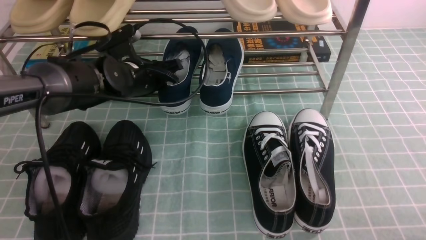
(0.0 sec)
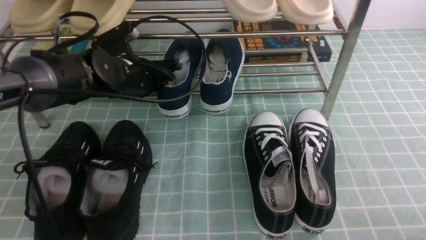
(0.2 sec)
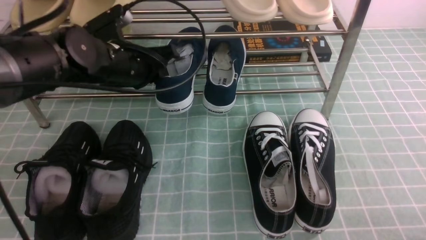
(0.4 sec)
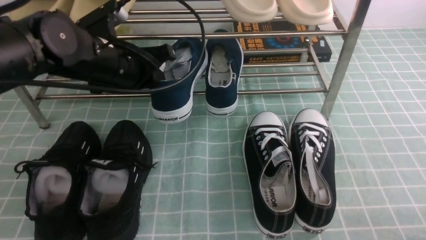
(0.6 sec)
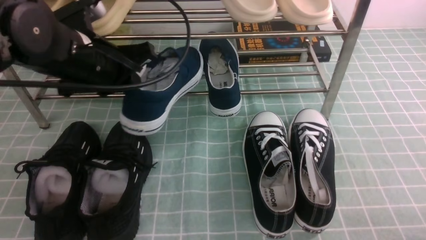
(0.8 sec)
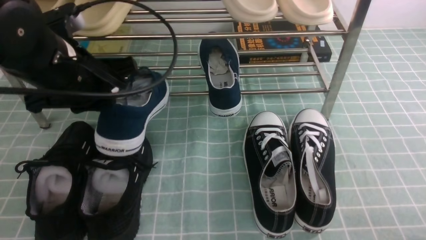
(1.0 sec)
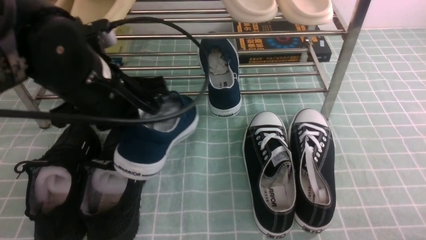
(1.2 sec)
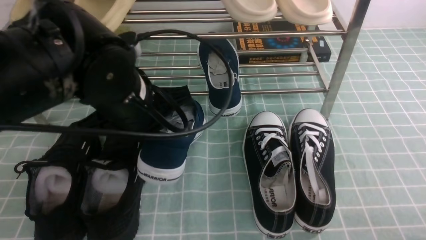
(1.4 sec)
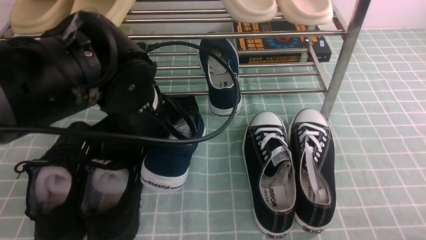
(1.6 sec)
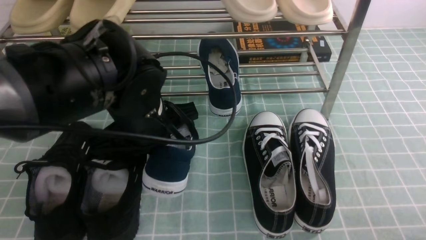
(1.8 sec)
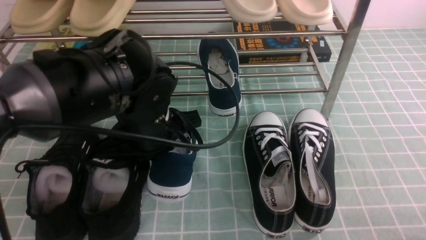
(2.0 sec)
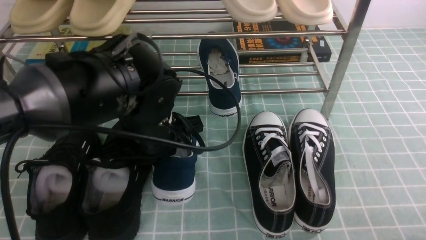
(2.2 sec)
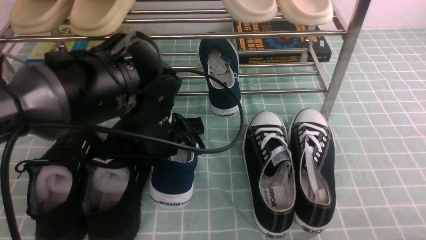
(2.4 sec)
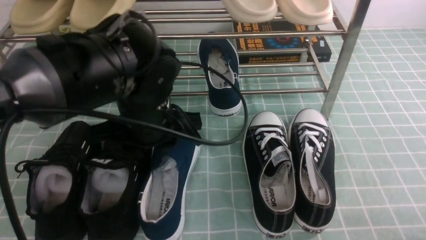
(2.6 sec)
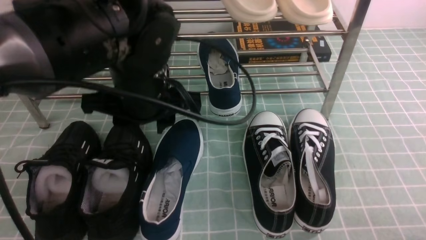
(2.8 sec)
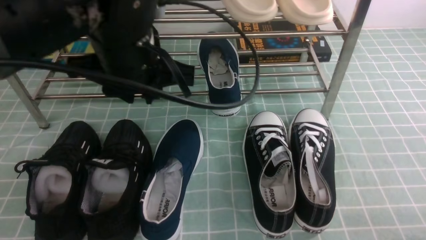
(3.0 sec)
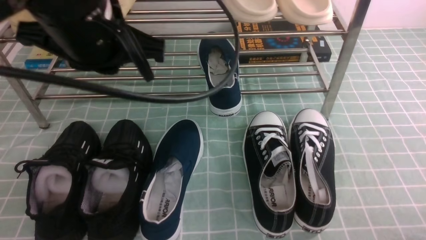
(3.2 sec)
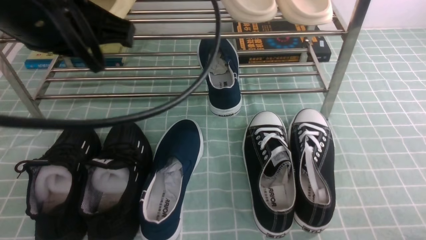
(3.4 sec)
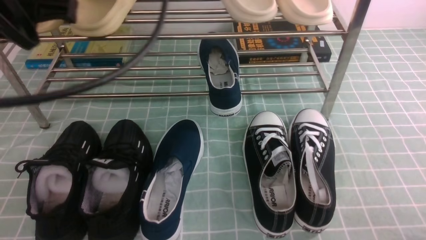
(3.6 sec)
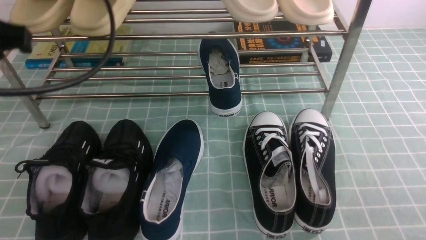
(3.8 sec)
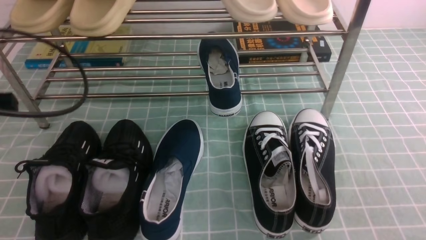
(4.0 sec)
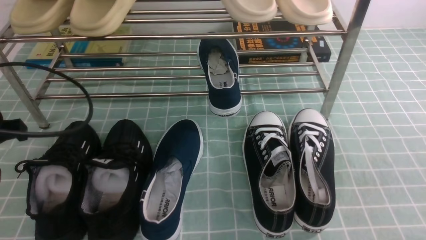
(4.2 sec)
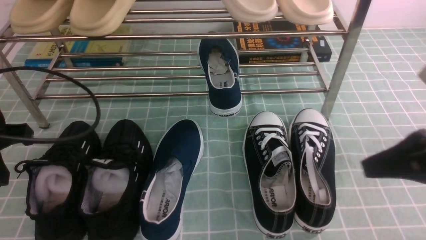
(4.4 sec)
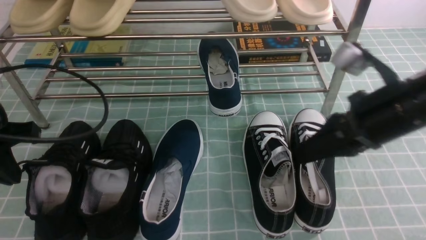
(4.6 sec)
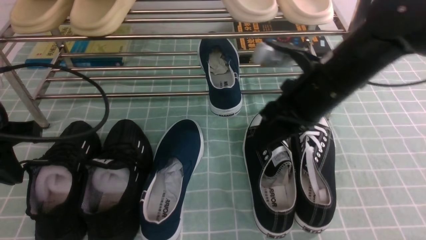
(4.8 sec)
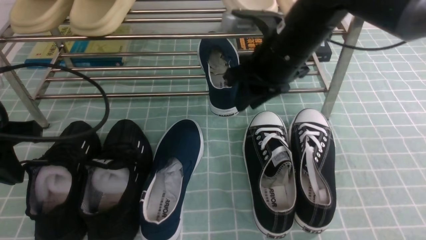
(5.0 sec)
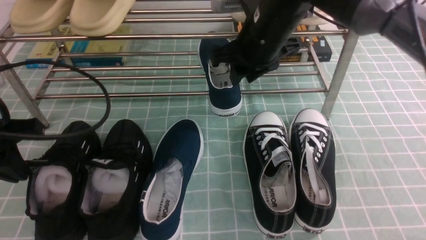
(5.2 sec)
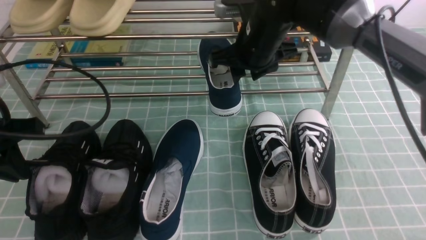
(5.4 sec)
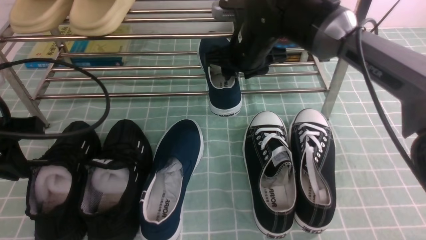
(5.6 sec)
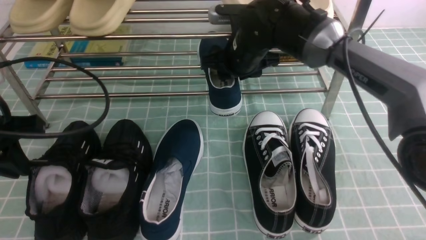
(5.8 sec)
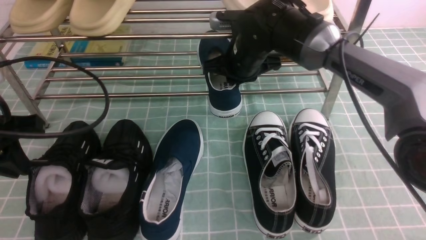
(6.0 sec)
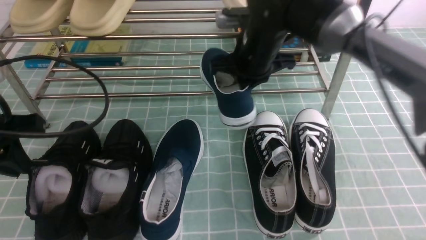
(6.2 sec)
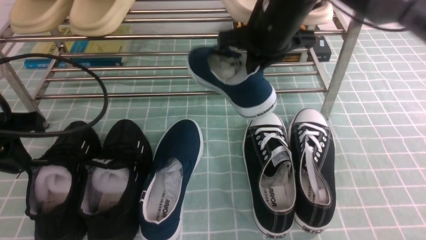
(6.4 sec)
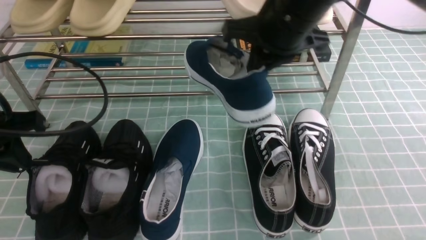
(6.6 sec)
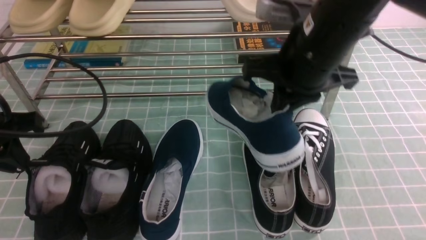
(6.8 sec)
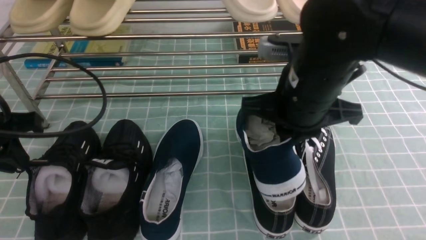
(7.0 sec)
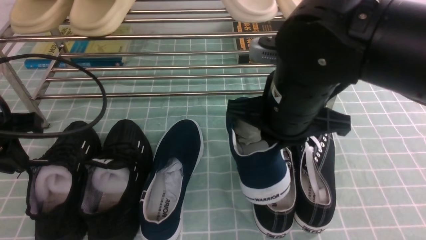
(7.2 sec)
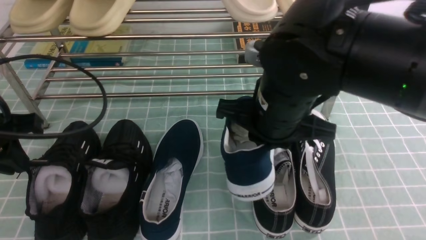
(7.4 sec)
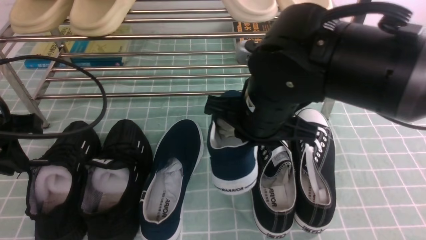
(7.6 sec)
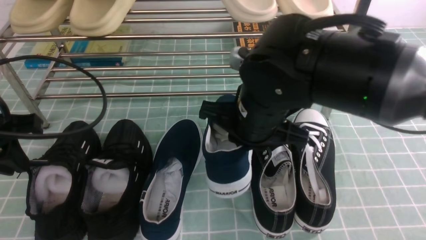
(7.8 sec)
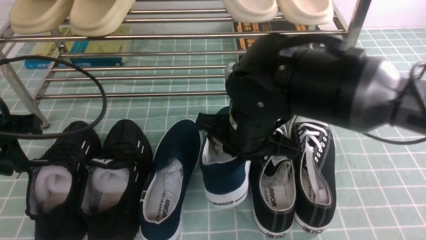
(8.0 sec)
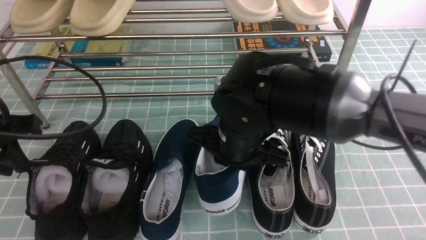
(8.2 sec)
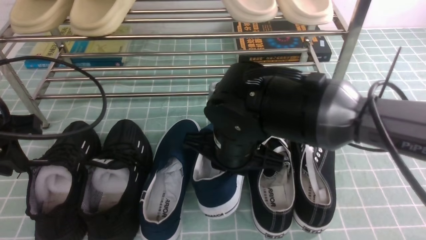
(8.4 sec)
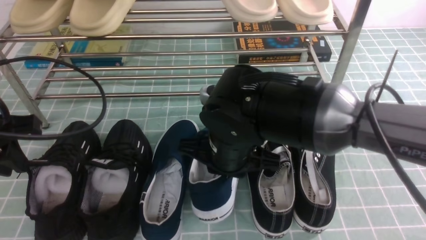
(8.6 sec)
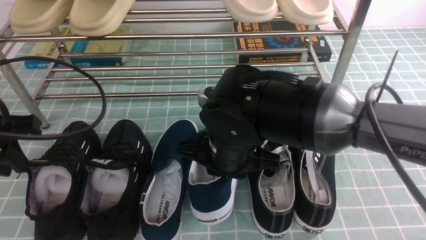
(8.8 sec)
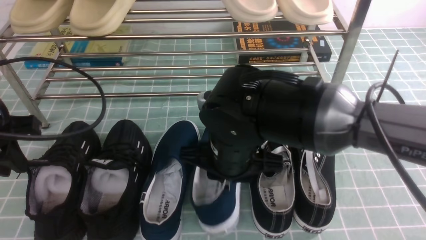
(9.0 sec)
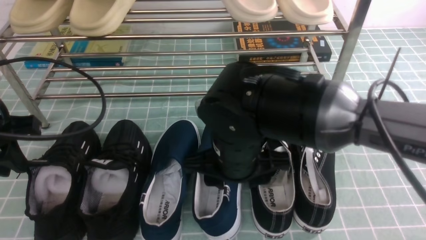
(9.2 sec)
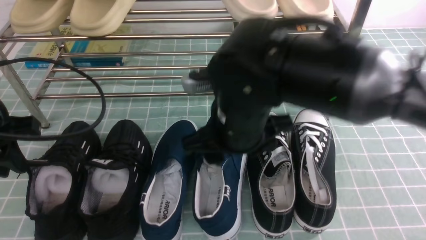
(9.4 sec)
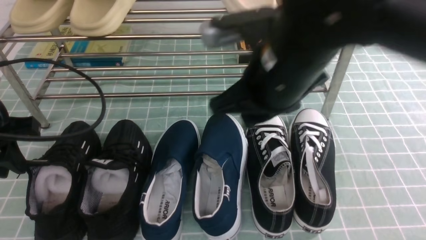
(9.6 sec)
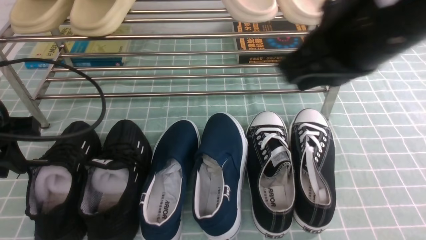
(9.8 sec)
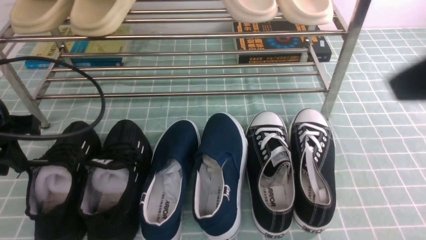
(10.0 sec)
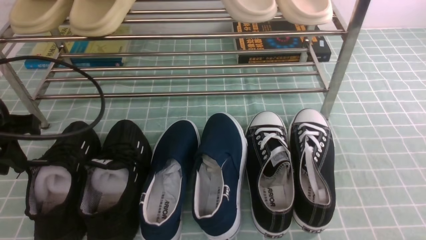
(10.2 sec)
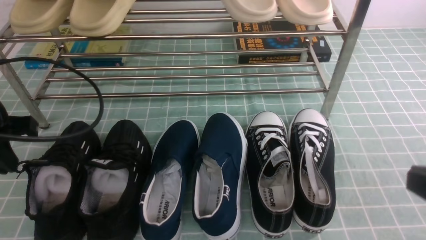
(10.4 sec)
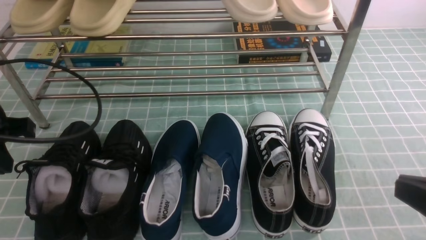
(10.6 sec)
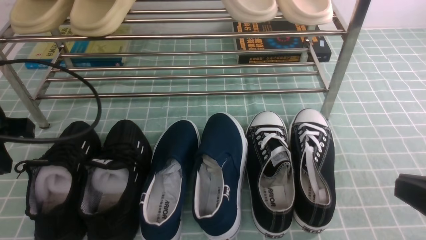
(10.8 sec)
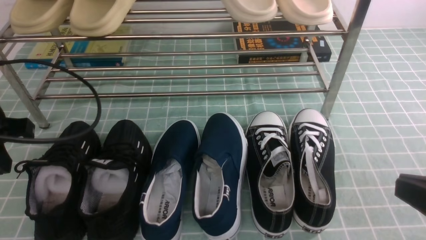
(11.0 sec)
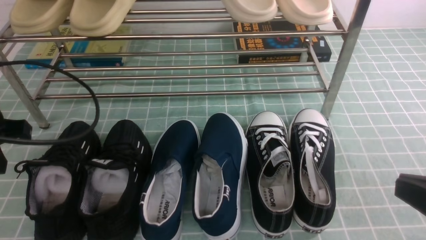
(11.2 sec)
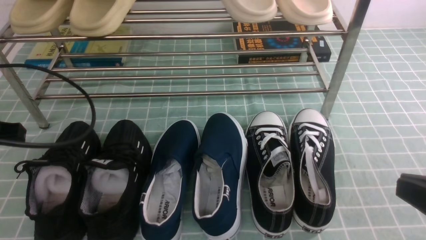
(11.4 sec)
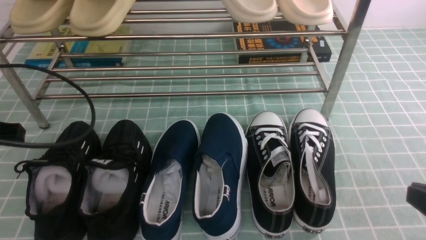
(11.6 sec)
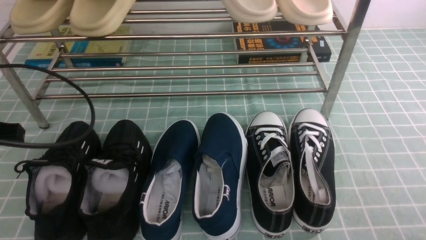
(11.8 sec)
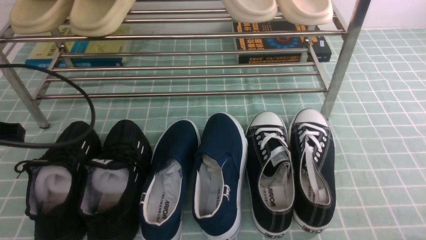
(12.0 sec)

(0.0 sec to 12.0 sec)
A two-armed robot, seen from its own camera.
Step, 0.4 sec - 2.6 sec: Use your left arm to remove the clamped shoe from the shoe rack and put it down.
Step, 2.8 sec - 6.0 sec: use the right arm to clamp a shoe in the middle of the shoe rack.
Step, 6.2 sec - 9.2 sec: use the right arm to take out the clamped shoe from the shoe rack and put it down.
0.0 sec - 1.6 sec: The left gripper travels backward and upward by roughly 15 cm.
1.6 sec - 3.0 sec: The left gripper shifts roughly 10 cm upward.
3.0 sec - 4.4 sec: The left gripper travels to the left by approximately 20 cm, and closes up. Meanwhile the right gripper is displaced upward, forward and to the left by some 20 cm, and closes.
4.4 sec - 6.0 sec: The right gripper moves forward and to the left, some 30 cm, and opens, then closes again.
6.0 sec - 7.6 sec: The right gripper is displaced backward by roughly 15 cm.
7.6 sec - 9.0 sec: The right gripper moves downward, about 5 cm, and opens.
9.0 sec - 10.4 sec: The right gripper shifts roughly 30 cm to the right and backward, and closes.
10.4 sec - 12.0 sec: The right gripper travels downward and to the right by approximately 15 cm.

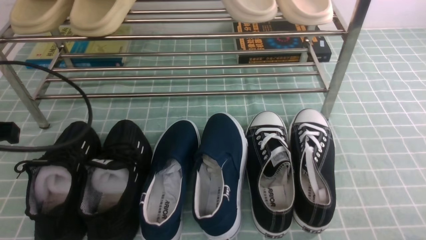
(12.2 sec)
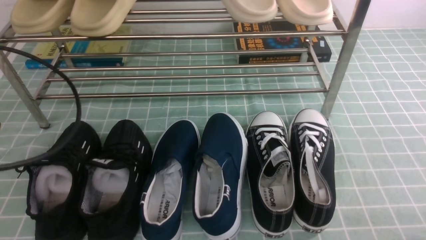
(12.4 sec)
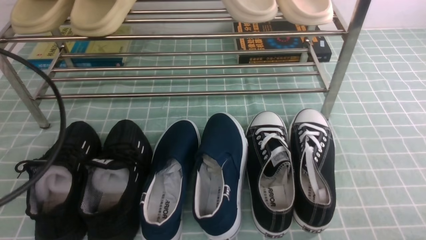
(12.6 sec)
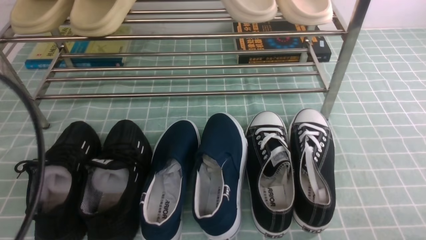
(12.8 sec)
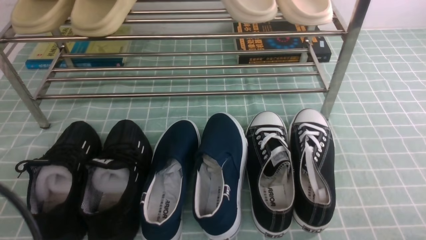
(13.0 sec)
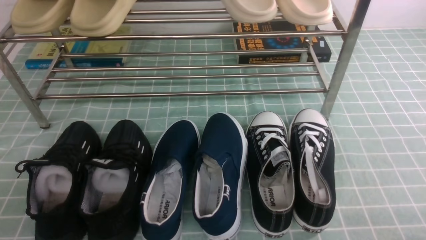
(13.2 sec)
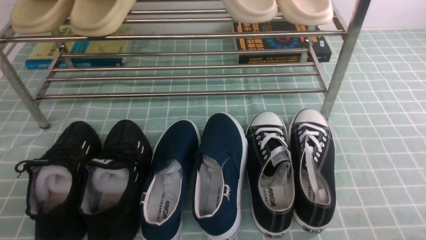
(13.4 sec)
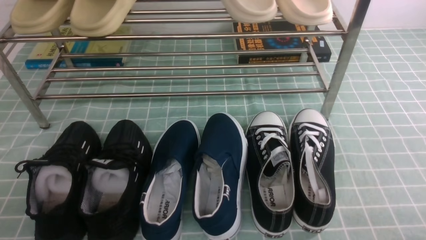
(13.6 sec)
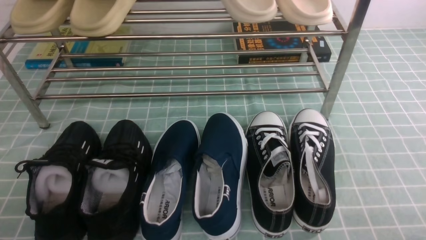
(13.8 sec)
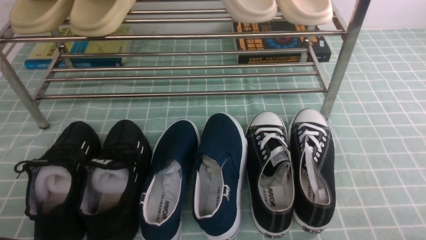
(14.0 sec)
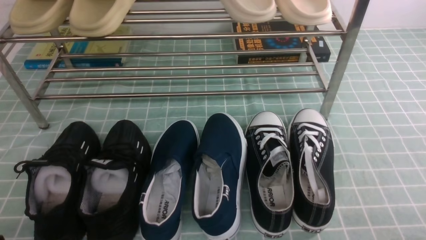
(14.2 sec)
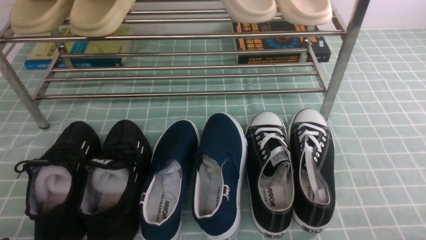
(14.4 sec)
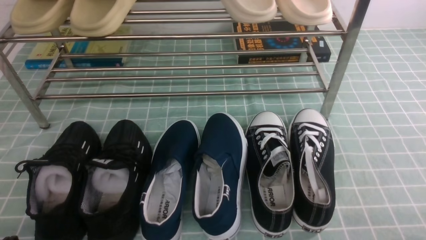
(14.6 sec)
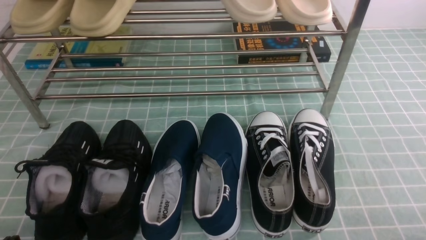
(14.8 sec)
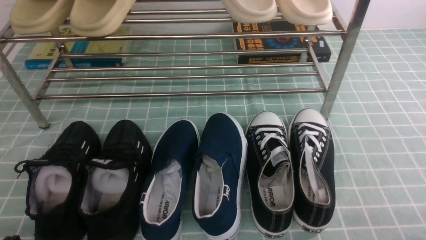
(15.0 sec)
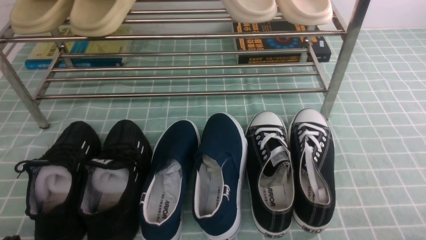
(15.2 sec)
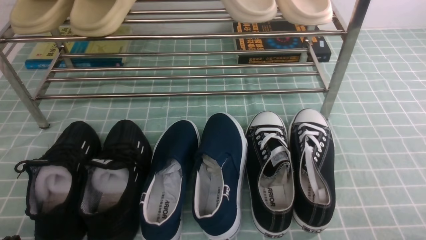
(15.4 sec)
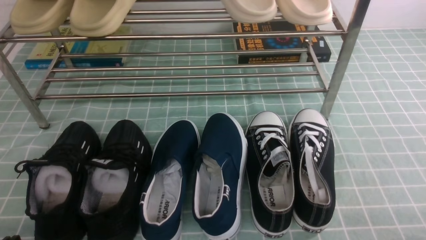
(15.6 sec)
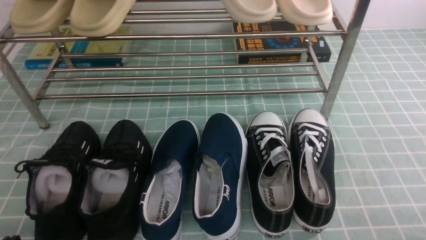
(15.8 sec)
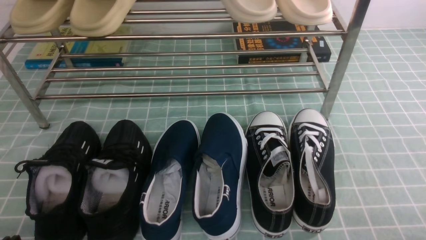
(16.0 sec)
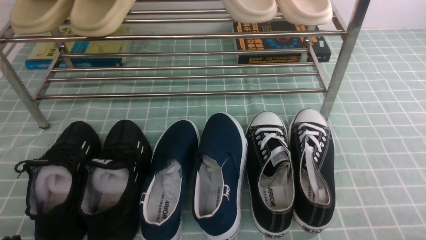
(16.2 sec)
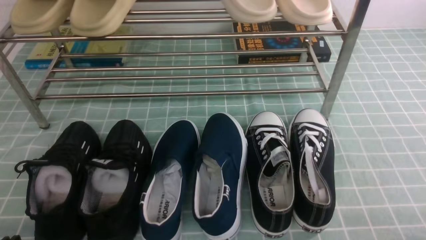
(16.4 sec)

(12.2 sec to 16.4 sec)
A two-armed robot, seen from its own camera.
12.2 sec - 13.6 sec: The left gripper goes roughly 20 cm backward.
15.0 sec - 16.4 sec: The two grippers keep their place.
